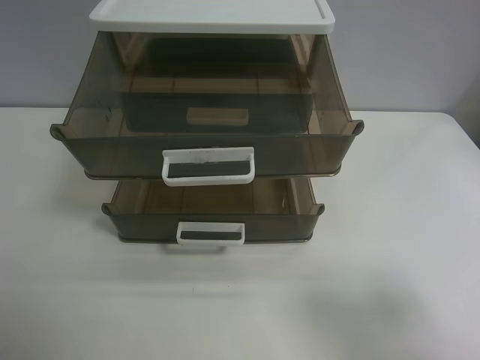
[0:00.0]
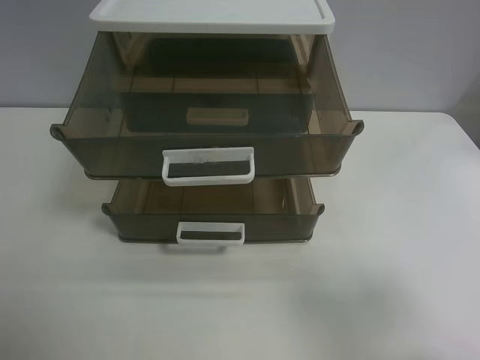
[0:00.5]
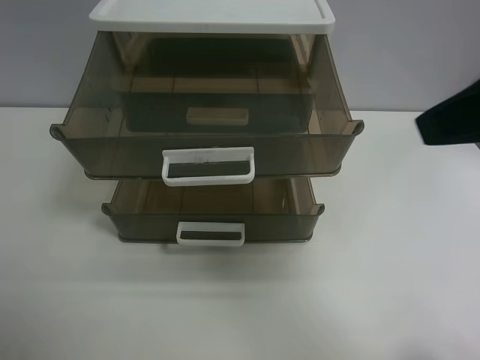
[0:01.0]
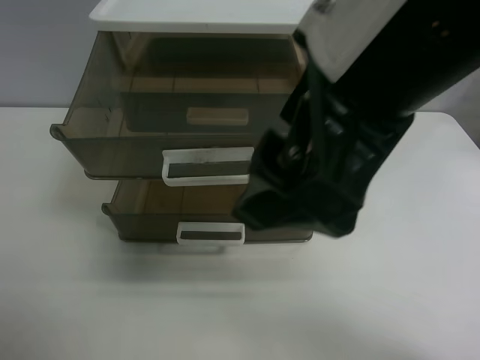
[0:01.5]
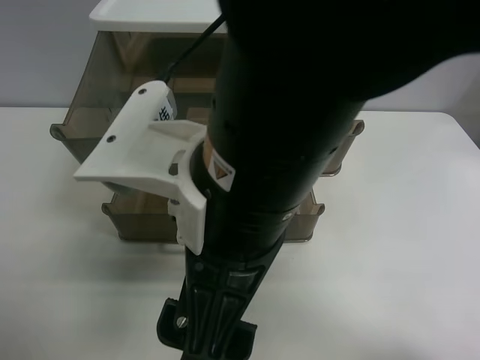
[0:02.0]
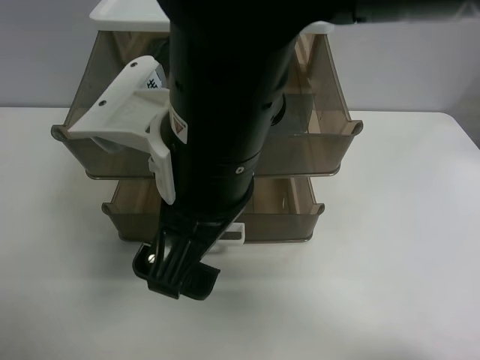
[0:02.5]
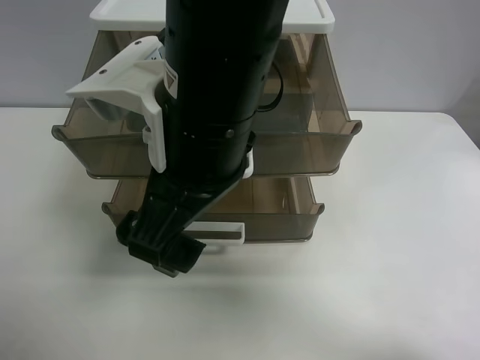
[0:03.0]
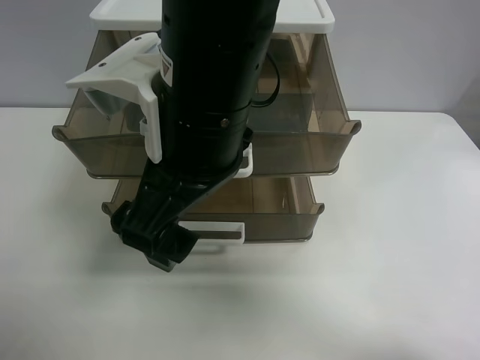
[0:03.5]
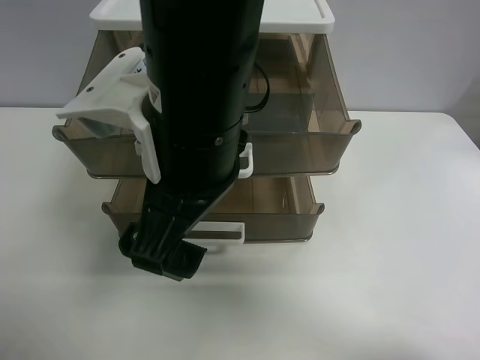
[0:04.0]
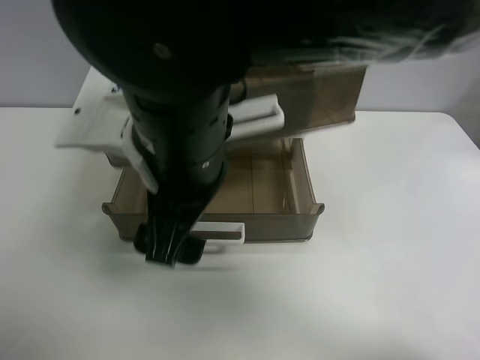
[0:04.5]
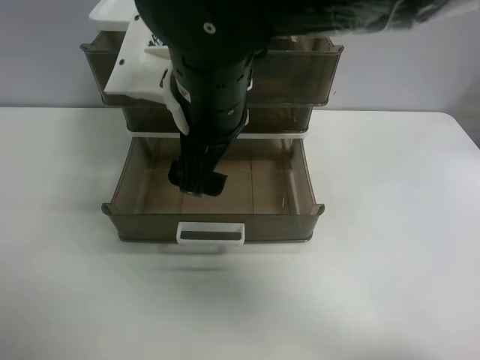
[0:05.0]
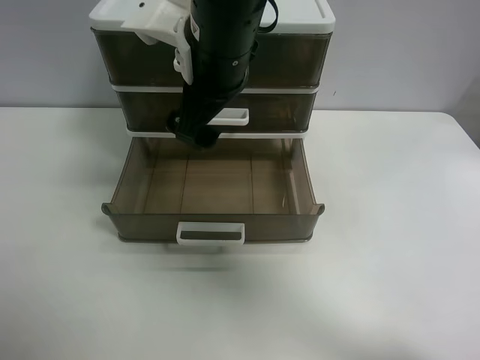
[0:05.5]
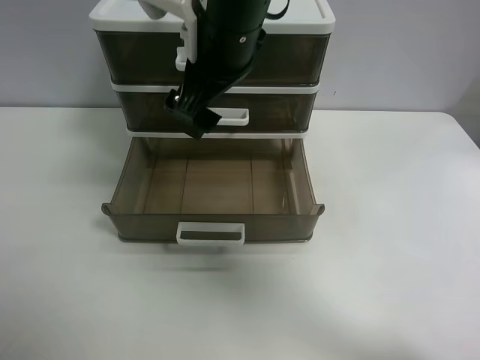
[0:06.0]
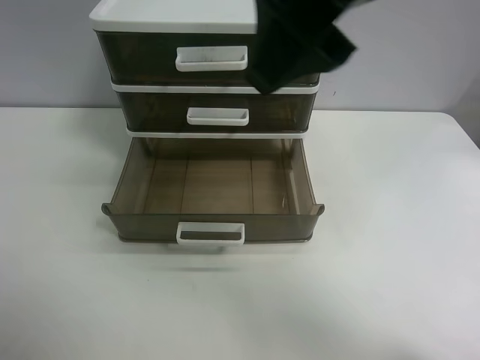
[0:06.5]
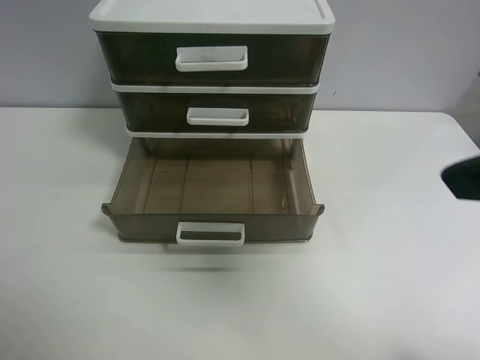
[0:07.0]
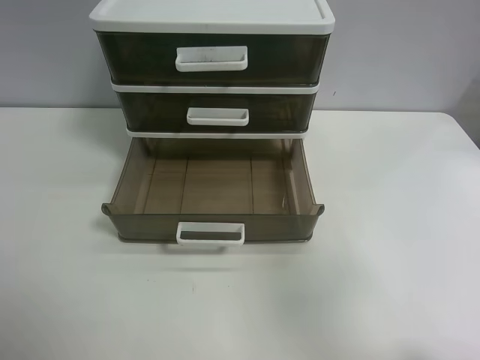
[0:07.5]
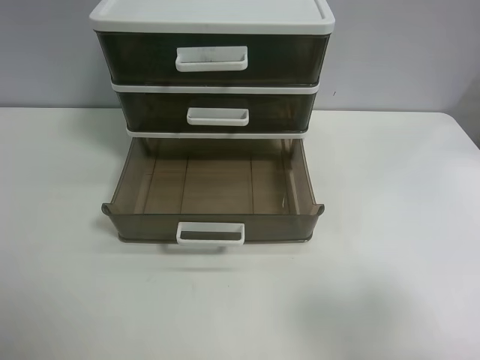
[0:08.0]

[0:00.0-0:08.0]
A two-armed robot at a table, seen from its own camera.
Task of the whole recording: close the top drawer.
Step, 0:00.0 to 0:03.5: Use the right gripper to touch the topmost layer of the storage cabinet.
Step, 0:04.0 to 0:06.0: Push the top drawer closed.
0:00.0 to 0:02.0: The right gripper is displaced to the left by roughly 30 cm.
0:02.0 to 0:04.0: The right gripper goes about 5 cm forward.
0:04.0 to 0:06.0: The right gripper travels forward by approximately 10 cm.
0:06.0 to 0:08.0: The right gripper heads to the right and backward, covering roughly 40 cm.
